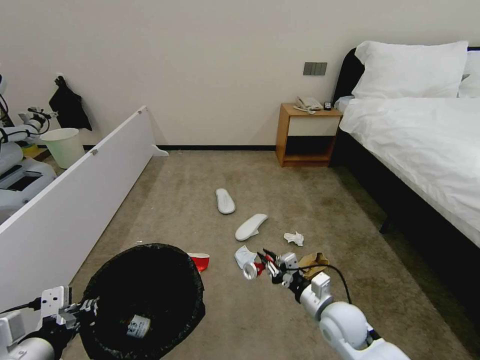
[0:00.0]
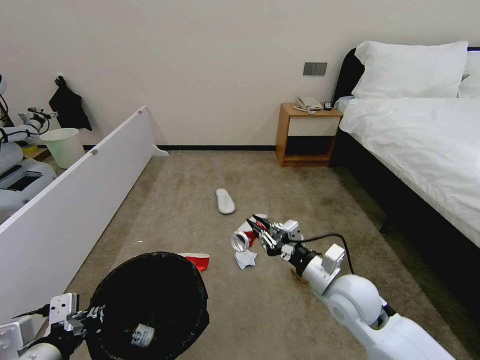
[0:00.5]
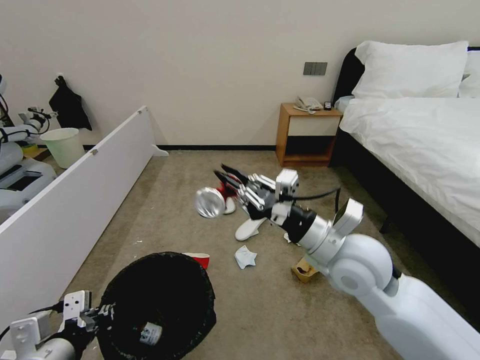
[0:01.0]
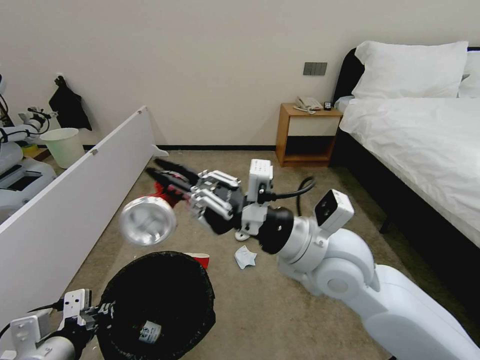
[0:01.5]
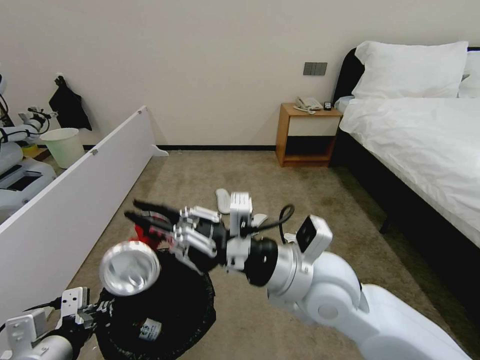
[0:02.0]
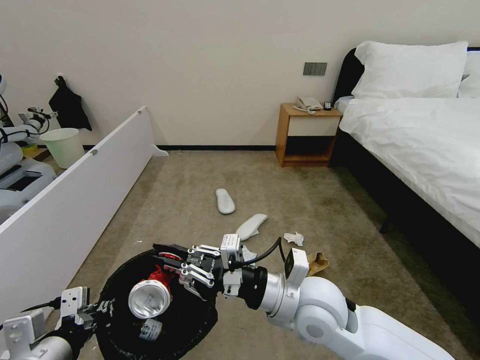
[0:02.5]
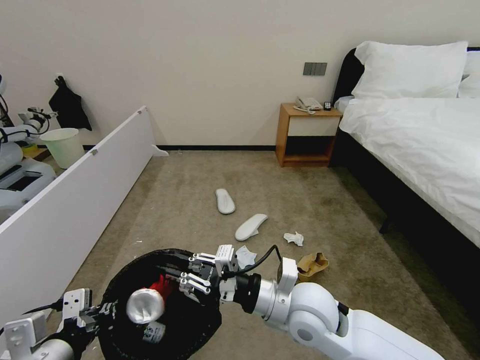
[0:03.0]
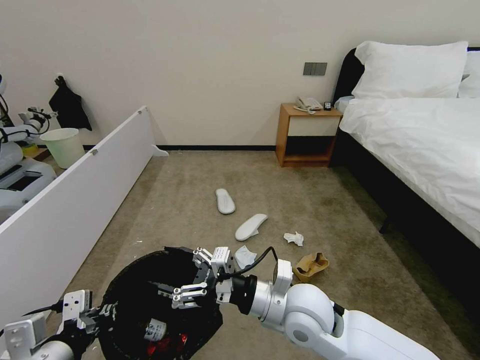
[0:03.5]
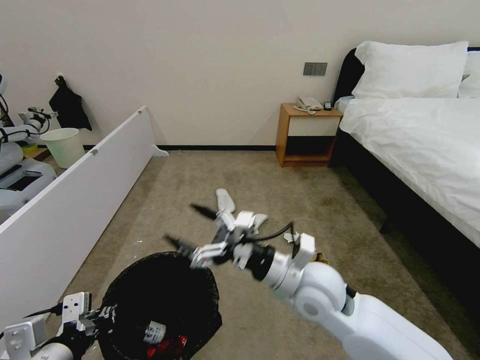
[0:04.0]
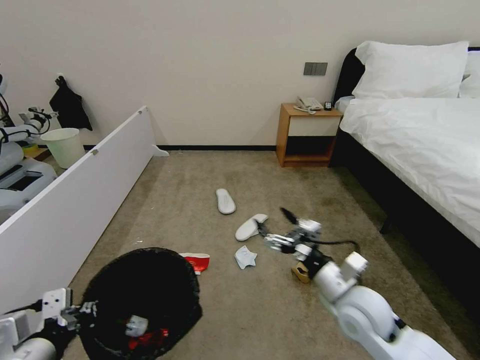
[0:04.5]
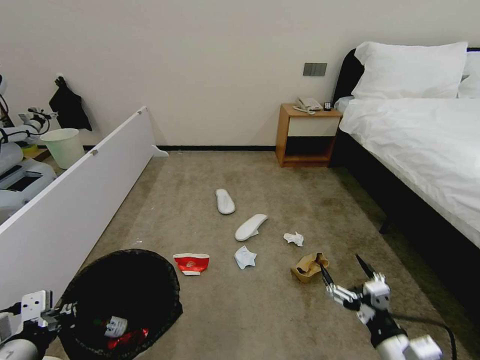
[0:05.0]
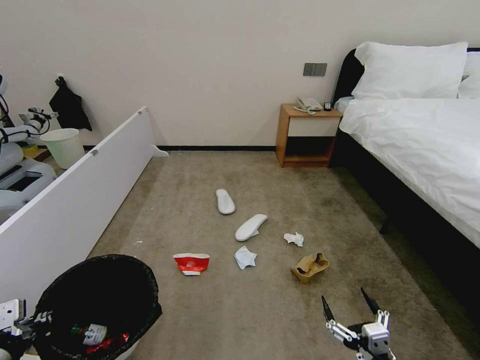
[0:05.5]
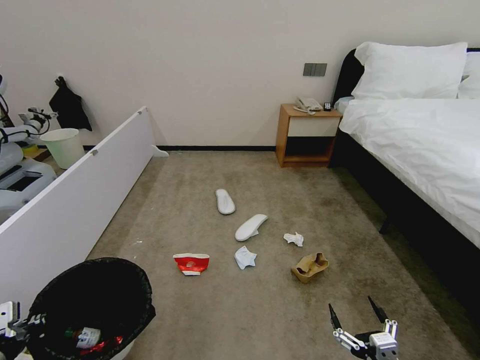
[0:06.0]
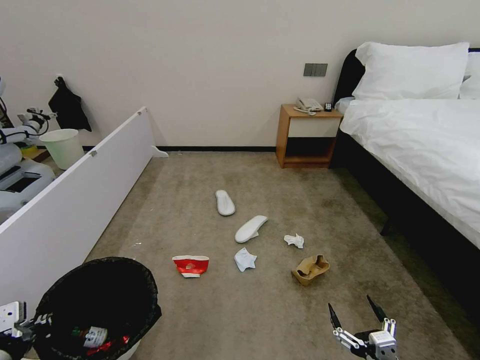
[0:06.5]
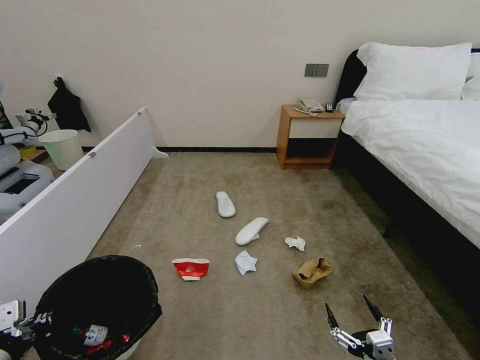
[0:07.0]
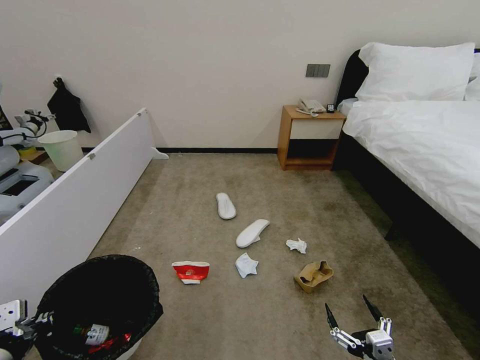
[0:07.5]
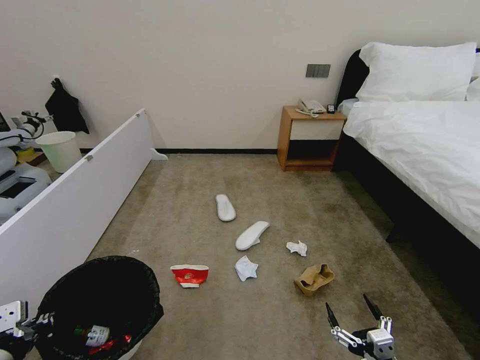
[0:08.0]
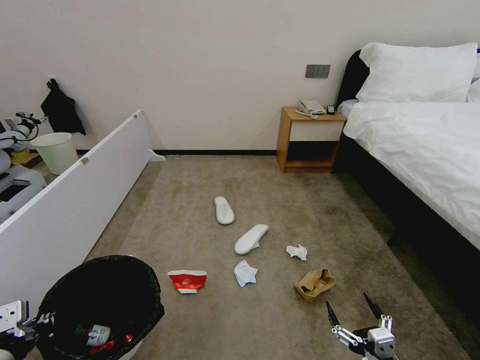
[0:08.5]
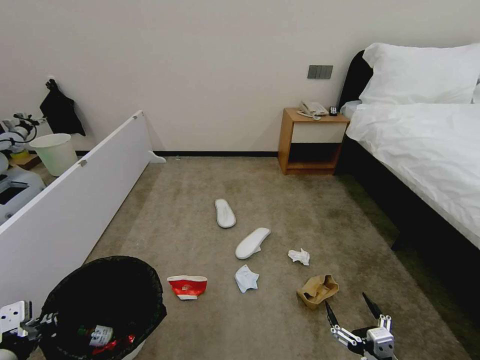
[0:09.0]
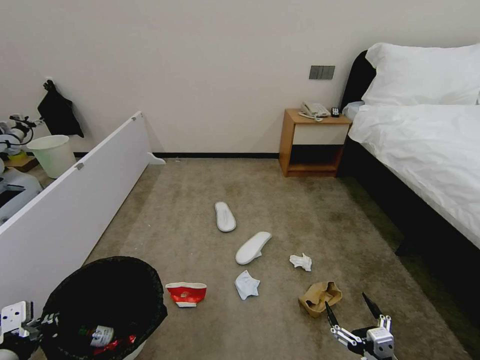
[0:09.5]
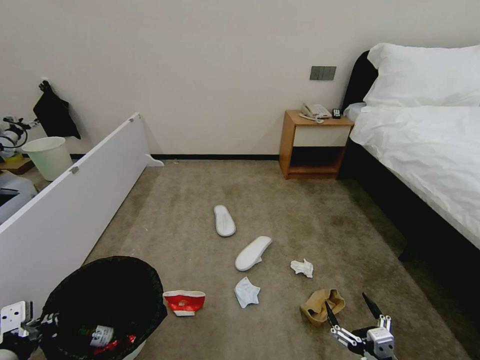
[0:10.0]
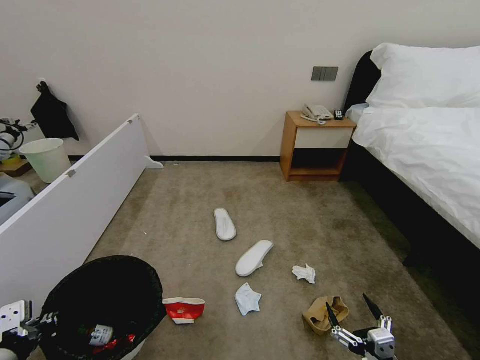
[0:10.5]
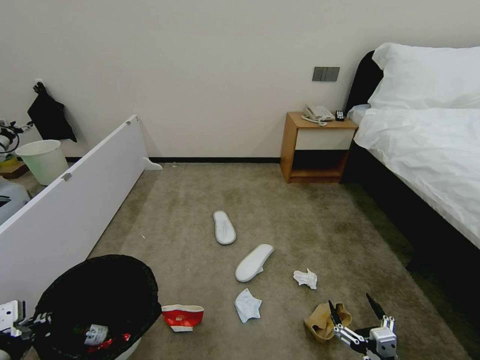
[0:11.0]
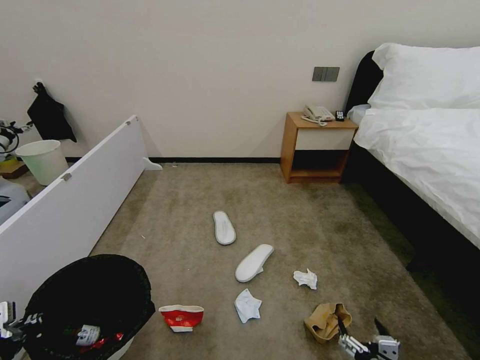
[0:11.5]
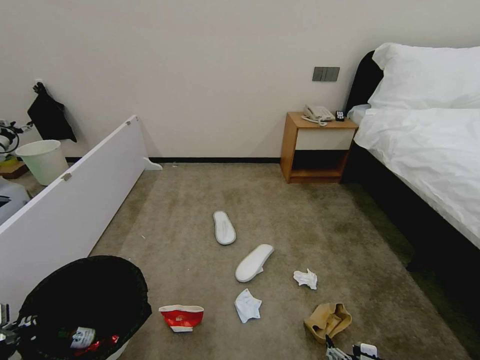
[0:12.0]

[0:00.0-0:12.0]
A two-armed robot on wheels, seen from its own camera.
Task of the whole recording: Pick up the trash bin, then pick up the garbage from the floor and place it into the trash bin.
0:00.0 to 0:02.0: The right gripper travels upward and to the left by some 25 cm.
0:02.0 to 0:04.0: The right gripper is displaced downward by roughly 10 cm, and opens its fingers.
0:04.0 to 0:06.0: The left gripper shifts about 10 cm to the left, while the right gripper heads backward, to the right and downward, covering about 35 cm.
0:06.0 to 0:08.0: There are only small adjustments of the grippers.
0:08.0 to 0:10.0: Neither gripper changes place.
0:10.0 to 0:12.0: The right gripper heads downward, covering about 5 cm.

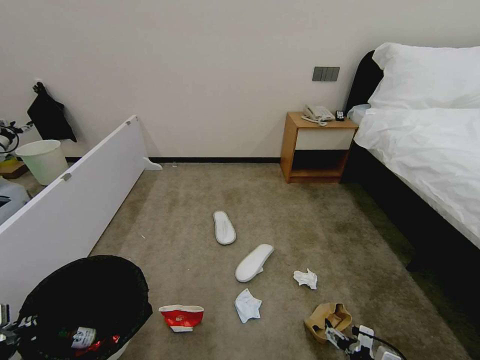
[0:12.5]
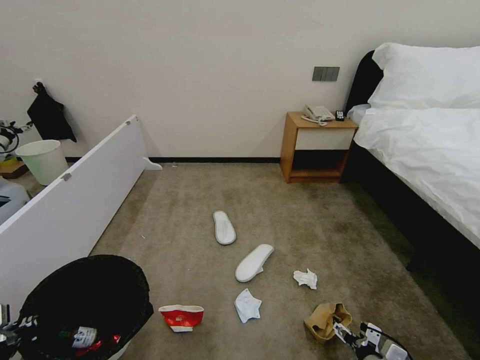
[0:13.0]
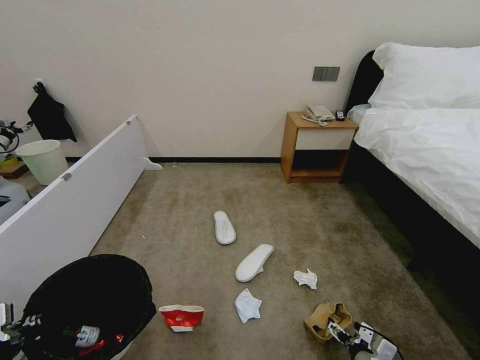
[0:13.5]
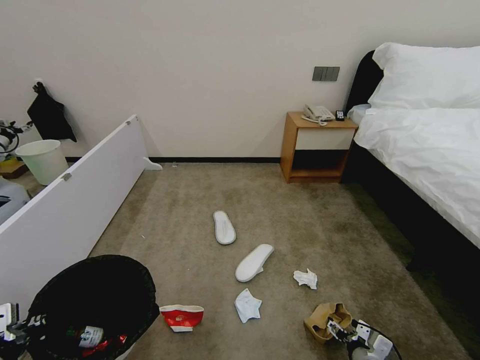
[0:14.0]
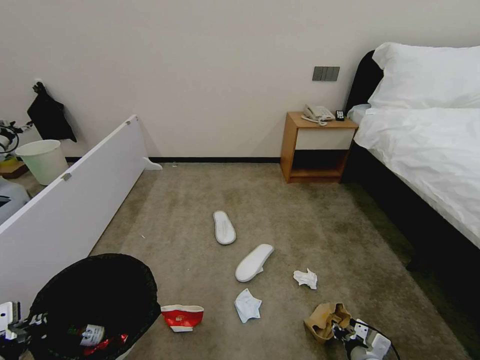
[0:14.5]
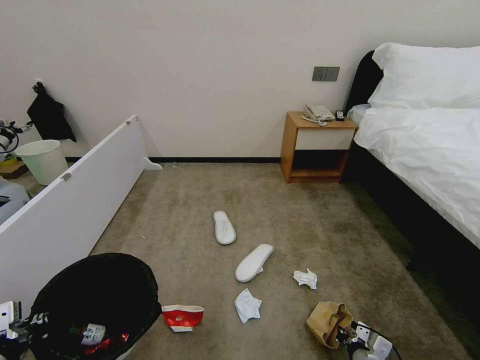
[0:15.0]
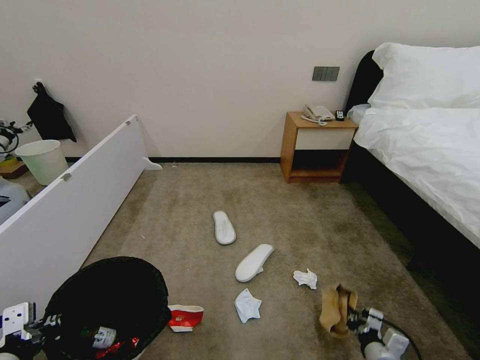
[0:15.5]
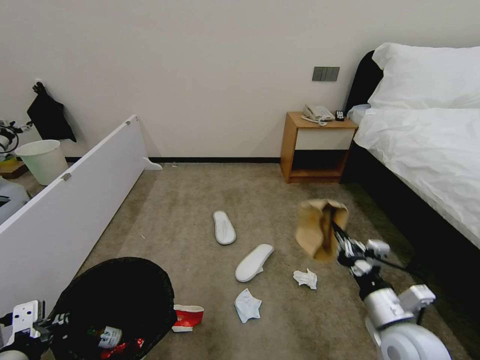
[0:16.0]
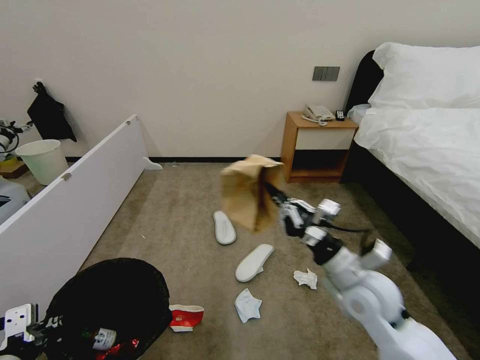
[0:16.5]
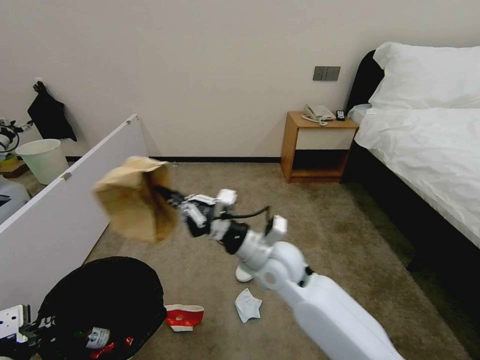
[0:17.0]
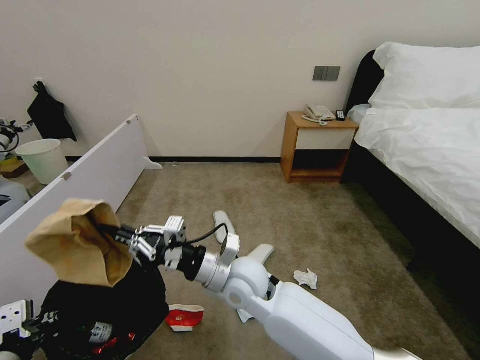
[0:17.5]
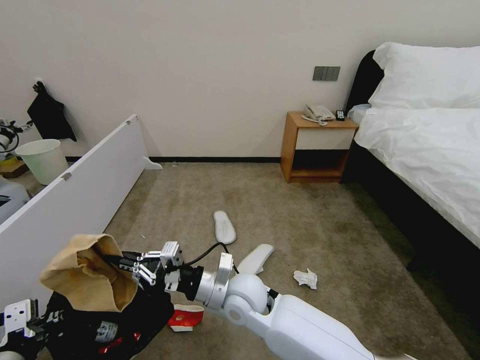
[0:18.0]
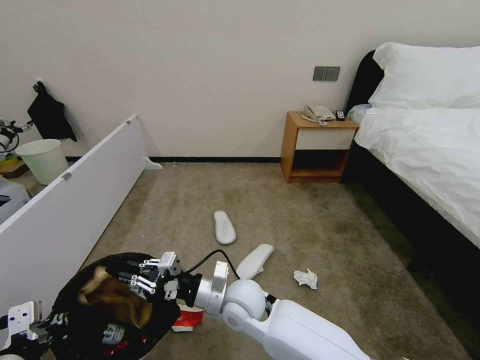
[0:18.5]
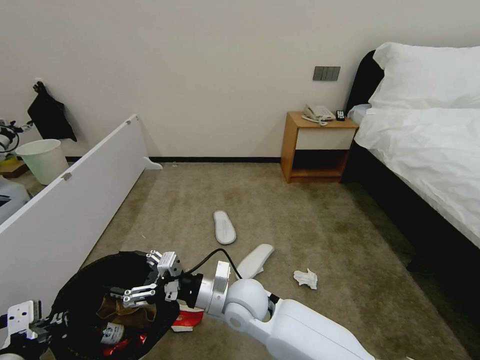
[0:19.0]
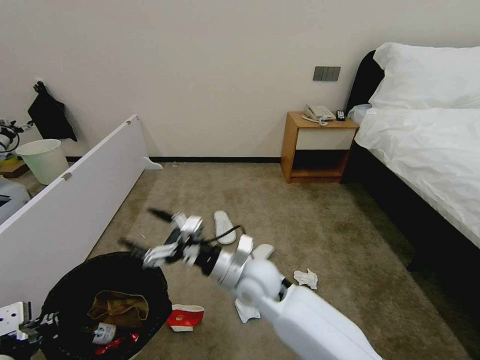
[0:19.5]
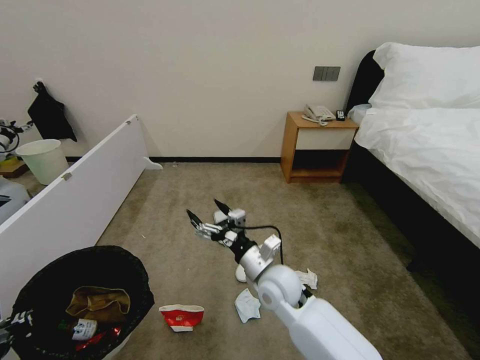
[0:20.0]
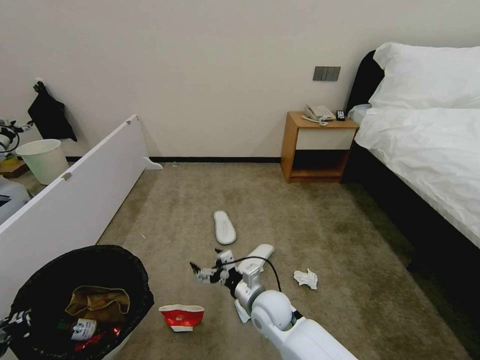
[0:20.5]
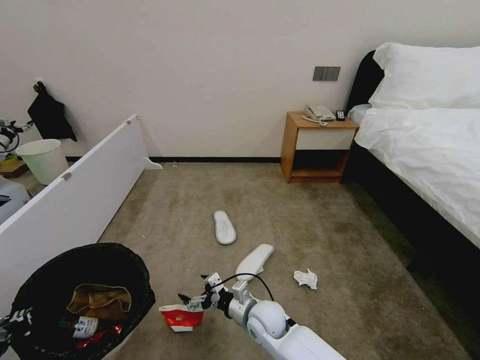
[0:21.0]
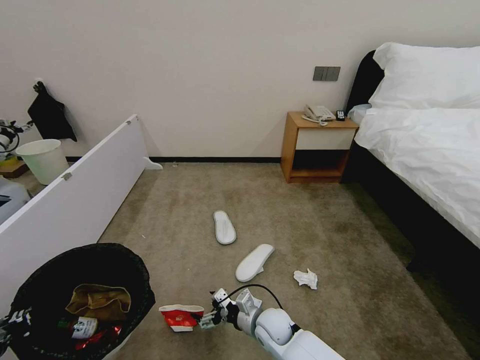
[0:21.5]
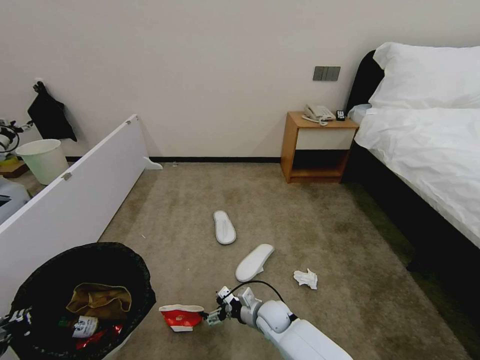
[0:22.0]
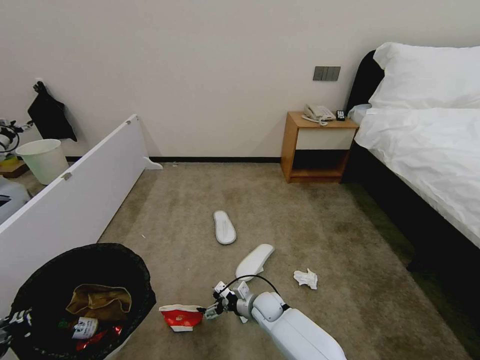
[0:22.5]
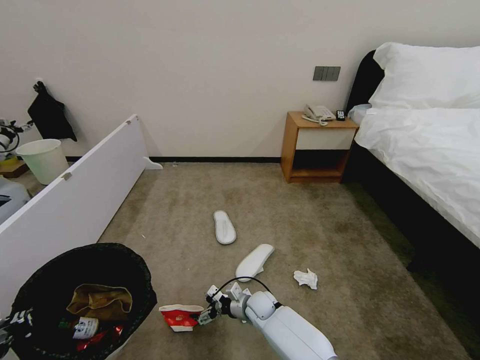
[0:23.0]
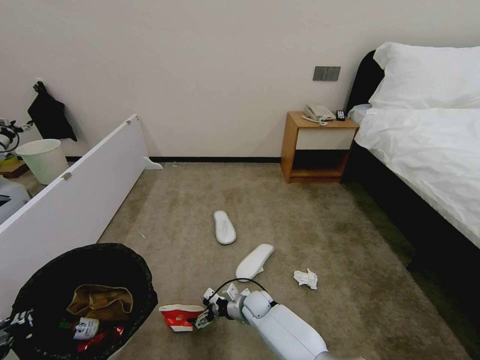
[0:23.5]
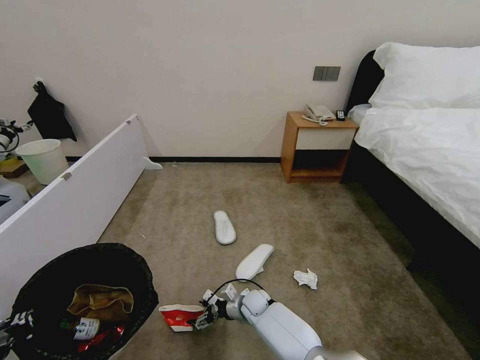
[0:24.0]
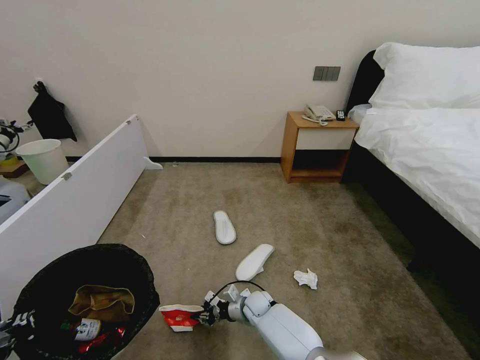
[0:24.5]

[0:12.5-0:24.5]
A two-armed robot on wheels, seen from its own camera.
Task of the whole recording: Pick up the trash bin, then pick up the garbage from the floor and place it into the trash bin.
0:12.5 to 0:14.5: The right gripper heads forward, covering roughly 5 cm, and closes.
0:14.5 to 0:16.5: The right gripper goes about 30 cm upward.
0:16.5 to 0:18.5: The right gripper goes some 25 cm to the left.
0:18.5 to 0:20.5: The right gripper shifts roughly 10 cm to the right and downward, and opens its fingers.
0:20.5 to 0:22.5: The right gripper moves downward and forward, approximately 15 cm.
0:22.5 to 0:24.5: The right gripper closes its fingers.

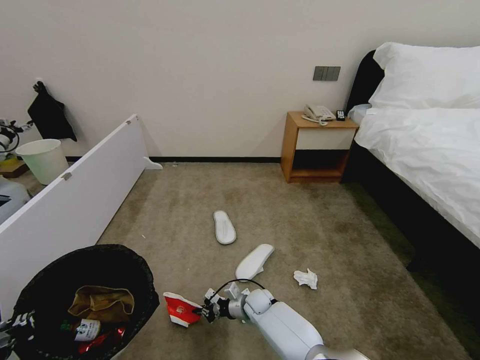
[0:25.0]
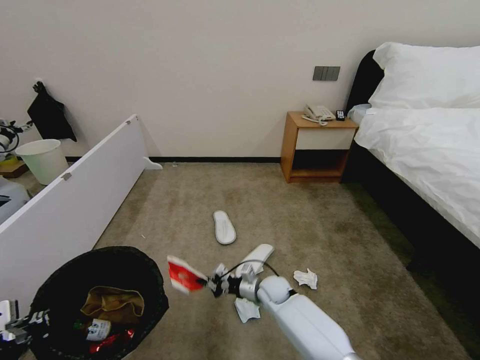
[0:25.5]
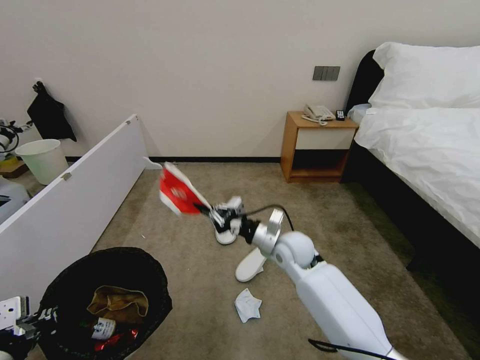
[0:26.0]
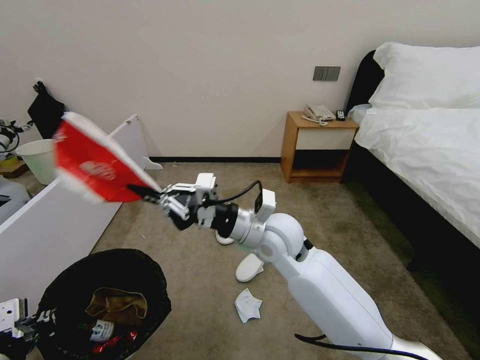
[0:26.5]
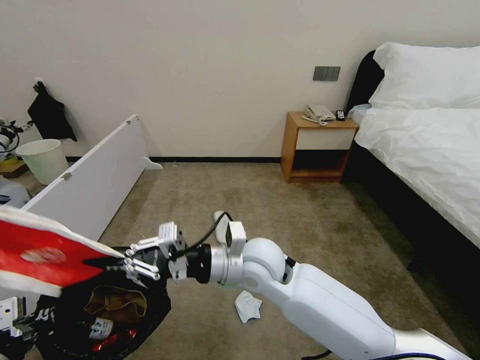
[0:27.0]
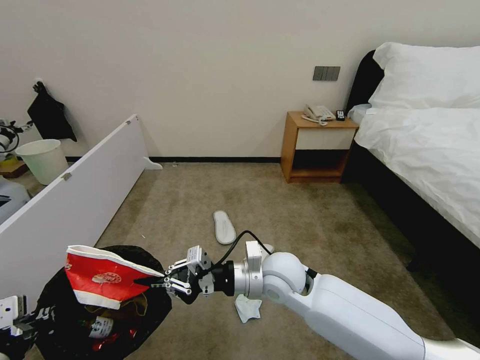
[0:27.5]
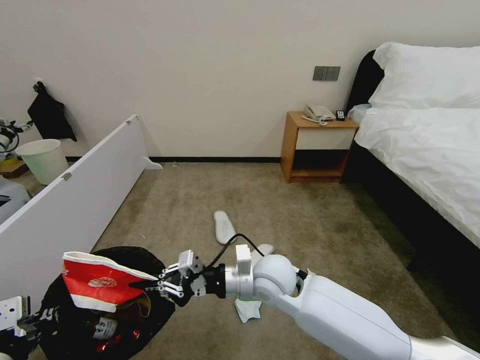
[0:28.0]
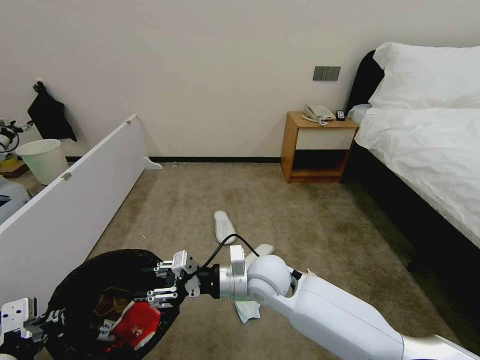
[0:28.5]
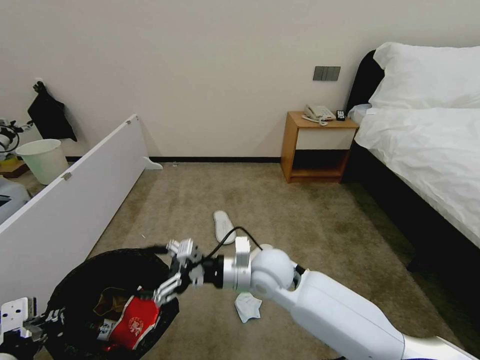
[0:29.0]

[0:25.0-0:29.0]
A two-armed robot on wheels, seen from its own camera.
Task of the whole recording: Pick up the trash bin, then pick up the garbage from the floor and place it into the trash bin.
0:25.0 to 0:27.0: The right gripper goes roughly 35 cm upward.
0:27.0 to 0:29.0: The right gripper heads downward, covering roughly 5 cm, and opens up.
